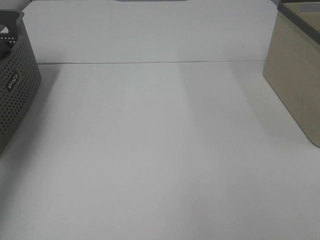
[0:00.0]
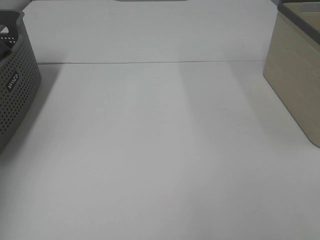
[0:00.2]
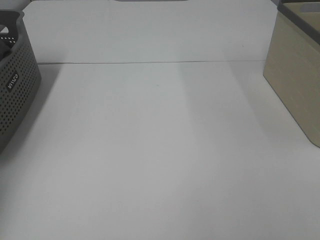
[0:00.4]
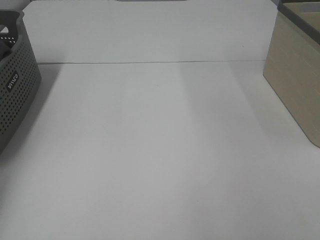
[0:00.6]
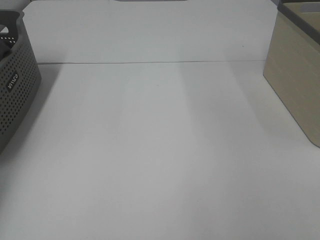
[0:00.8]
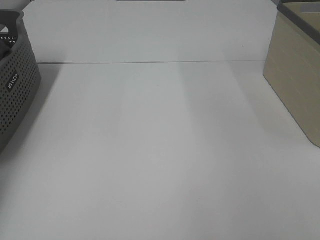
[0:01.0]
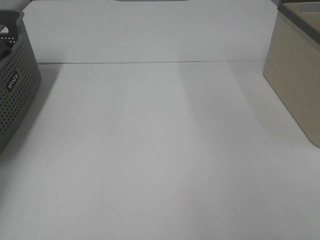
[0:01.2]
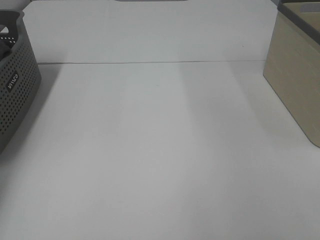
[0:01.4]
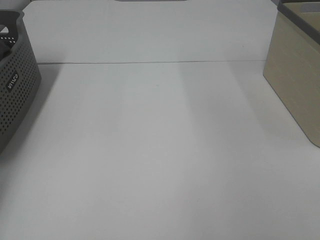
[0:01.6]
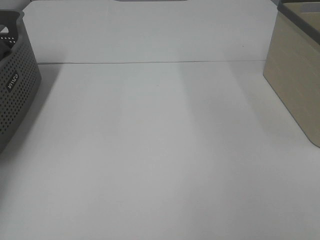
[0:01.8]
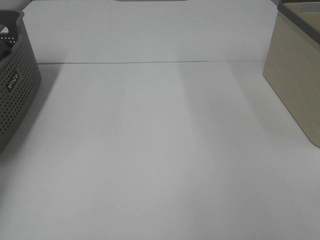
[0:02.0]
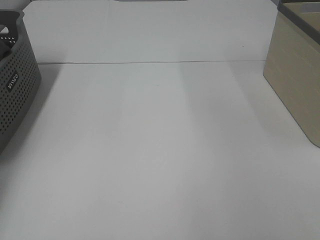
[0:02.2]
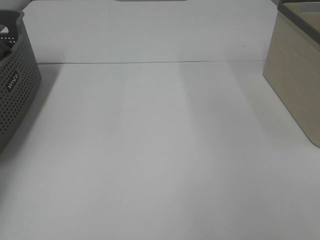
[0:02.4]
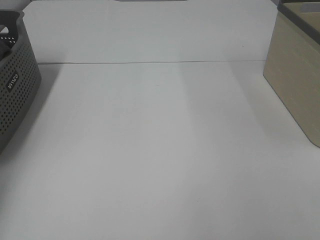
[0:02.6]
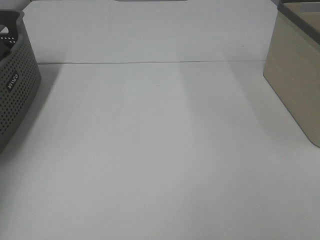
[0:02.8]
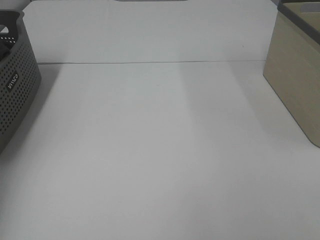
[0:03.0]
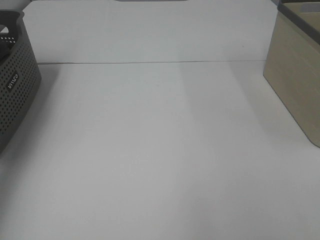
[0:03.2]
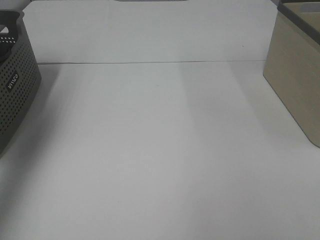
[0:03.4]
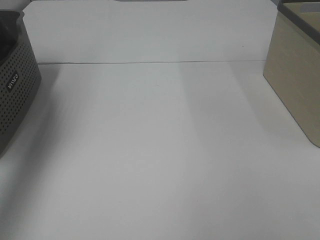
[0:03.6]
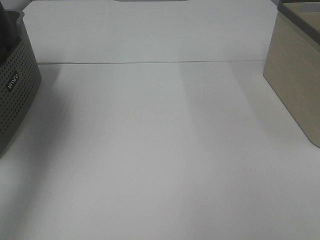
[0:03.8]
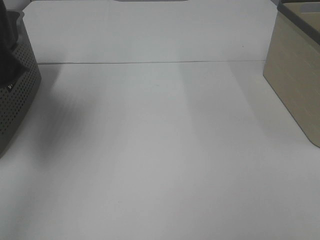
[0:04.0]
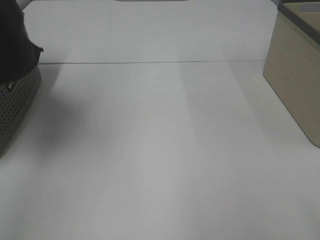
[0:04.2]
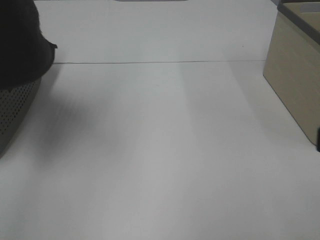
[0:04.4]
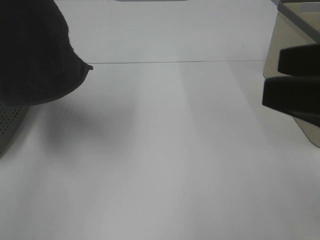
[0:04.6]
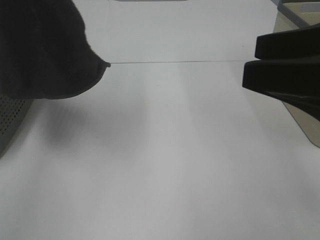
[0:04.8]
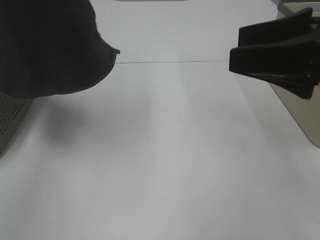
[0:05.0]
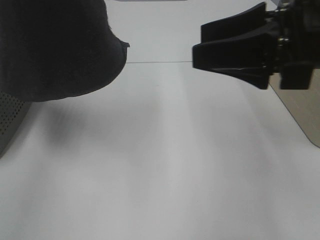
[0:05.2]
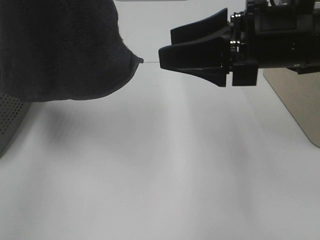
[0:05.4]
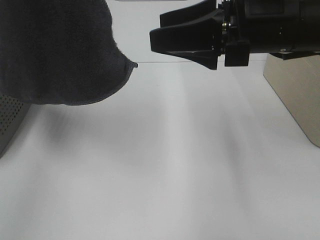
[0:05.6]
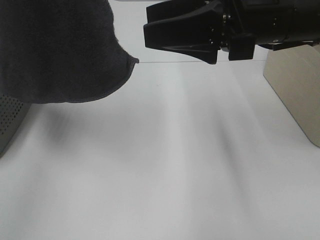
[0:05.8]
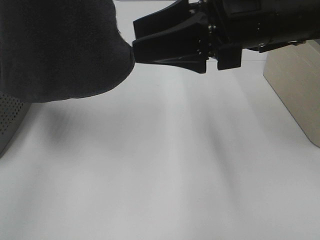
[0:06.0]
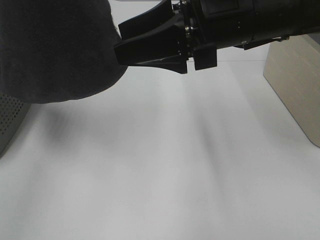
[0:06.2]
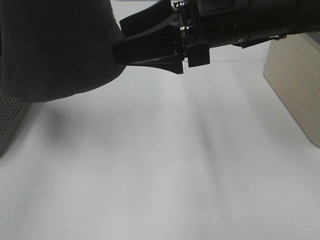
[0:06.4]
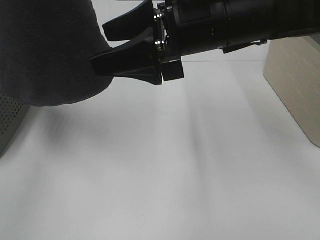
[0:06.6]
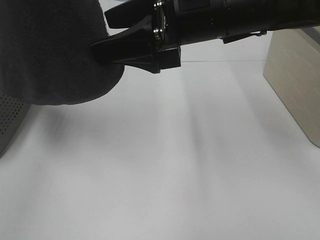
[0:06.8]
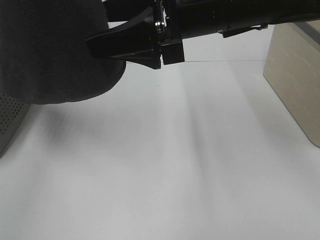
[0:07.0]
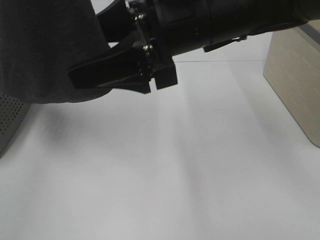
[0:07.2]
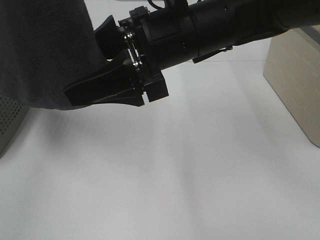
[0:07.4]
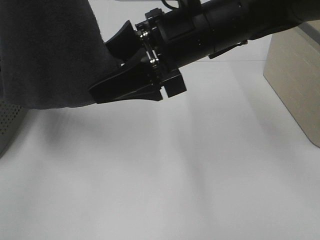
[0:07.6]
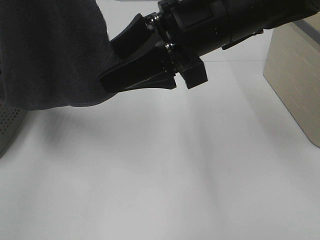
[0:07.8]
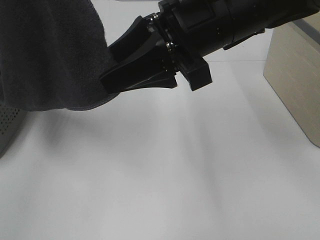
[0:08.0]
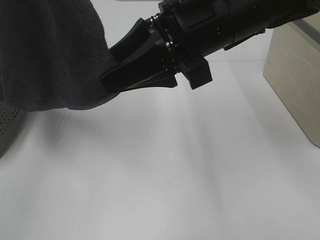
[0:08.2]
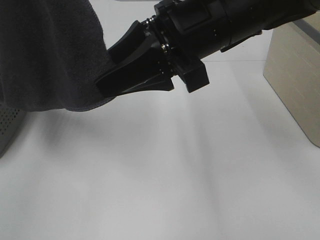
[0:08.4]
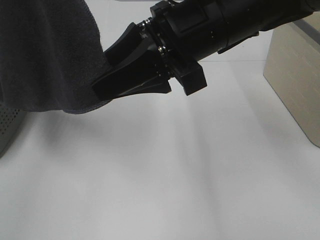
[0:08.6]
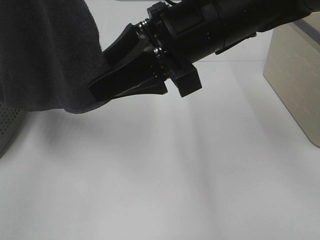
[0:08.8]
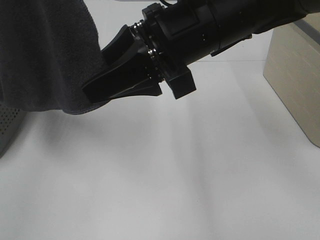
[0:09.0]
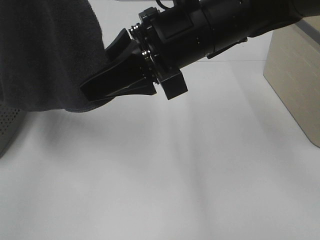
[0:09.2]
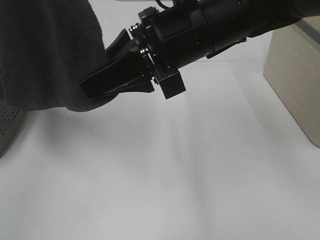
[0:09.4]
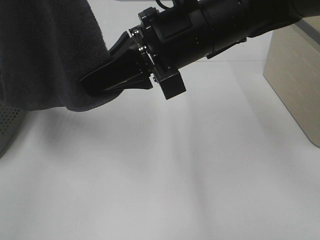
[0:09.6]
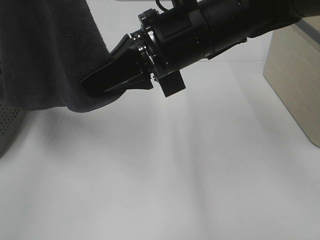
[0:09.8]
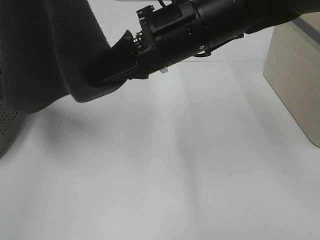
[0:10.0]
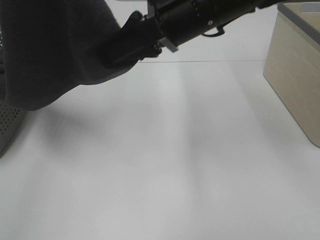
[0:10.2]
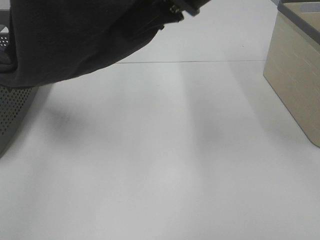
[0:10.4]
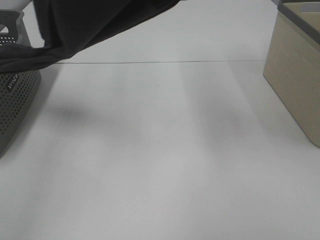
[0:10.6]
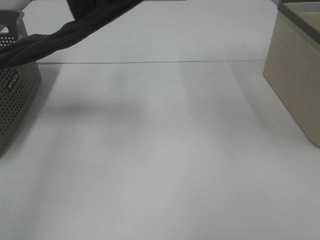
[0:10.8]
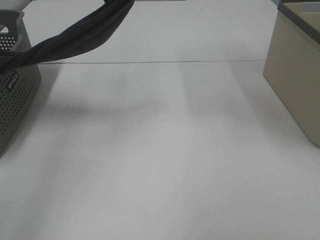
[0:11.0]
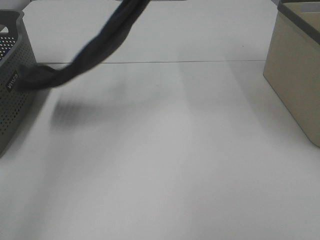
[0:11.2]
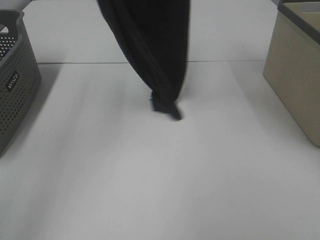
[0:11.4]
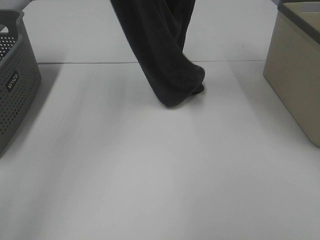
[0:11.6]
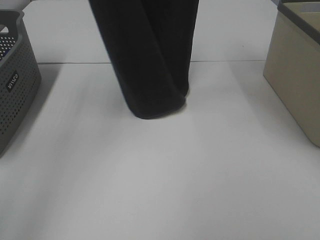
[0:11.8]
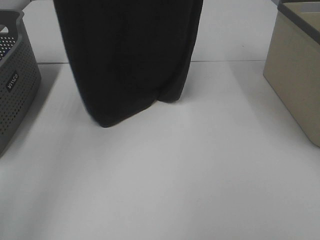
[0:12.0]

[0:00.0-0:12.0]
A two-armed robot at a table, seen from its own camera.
Task of the whole recording: Remove the towel and place it.
Step, 0:04.0 to 0:10.2: Right hand: grab a corner of the grey towel and straighten it.
0:00.0 to 0:01.6: The left gripper travels downward and forward by about 15 cm, and closes up.
0:03.0 to 0:04.4: The left gripper goes some 30 cm to the right, backward and upward. The right gripper moves forward, about 5 cm.
0:04.4 to 0:06.0: The right gripper goes roughly 25 cm forward and to the left.
0:06.0 to 0:07.6: The right gripper shifts about 5 cm to the left.
0:07.6 to 0:09.0: The grippers stay close to where they were, moving slightly.
0:09.0 to 0:10.4: The right gripper travels upward by some 5 cm, and closes up.
0:10.4 to 0:12.0: The right gripper travels upward by about 20 cm; the left gripper moves forward, some 15 cm.

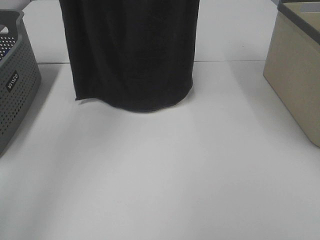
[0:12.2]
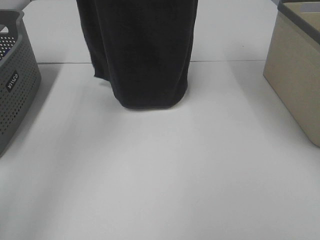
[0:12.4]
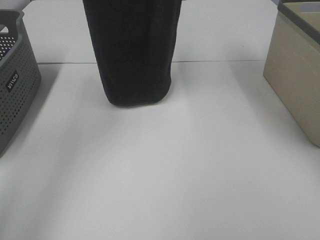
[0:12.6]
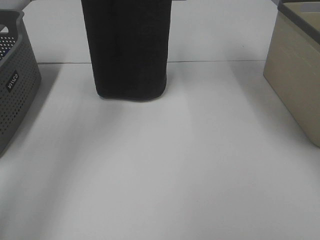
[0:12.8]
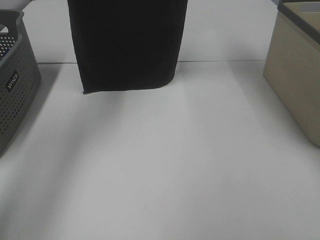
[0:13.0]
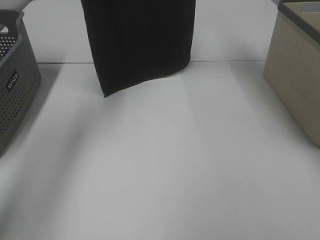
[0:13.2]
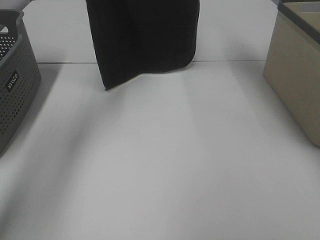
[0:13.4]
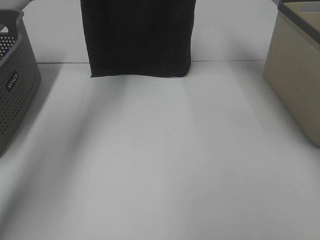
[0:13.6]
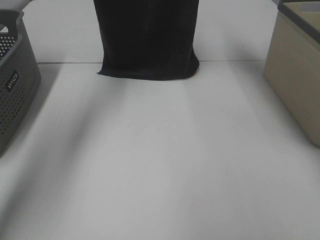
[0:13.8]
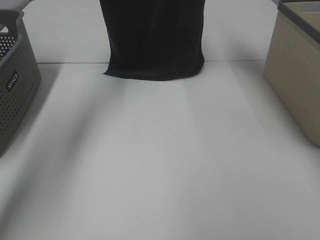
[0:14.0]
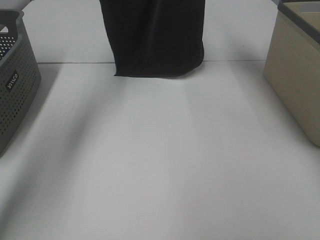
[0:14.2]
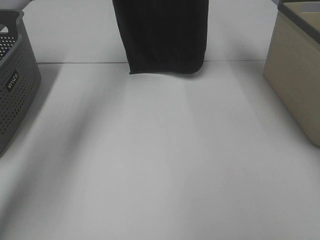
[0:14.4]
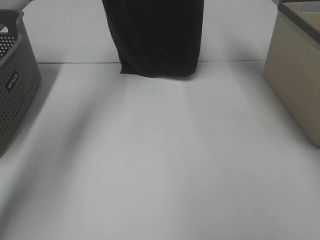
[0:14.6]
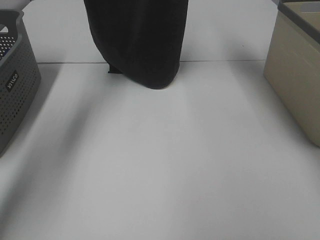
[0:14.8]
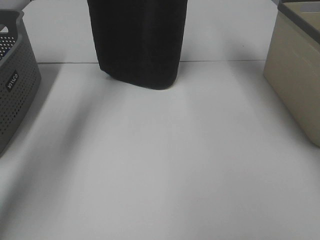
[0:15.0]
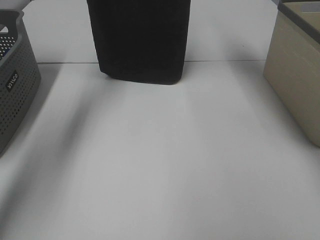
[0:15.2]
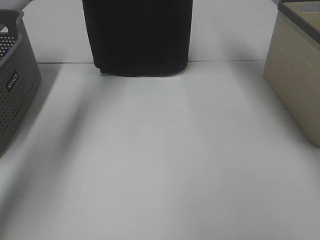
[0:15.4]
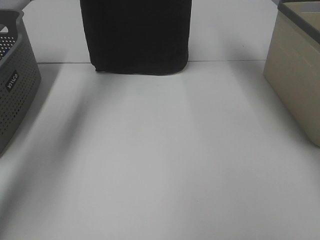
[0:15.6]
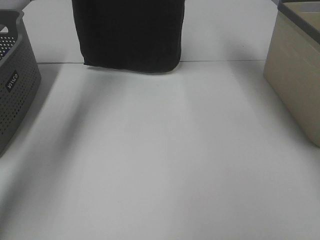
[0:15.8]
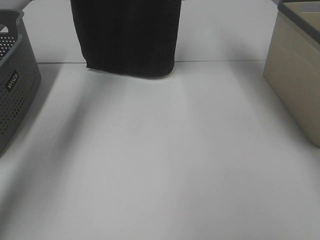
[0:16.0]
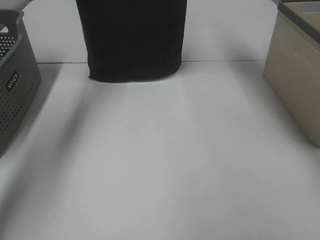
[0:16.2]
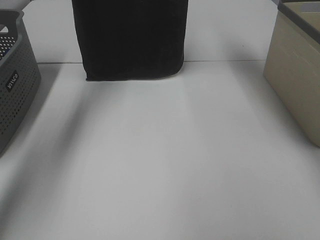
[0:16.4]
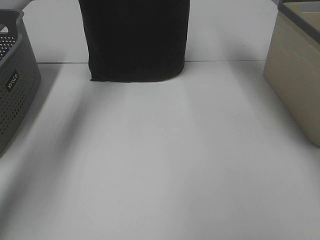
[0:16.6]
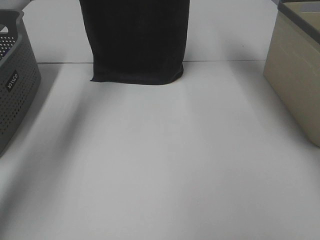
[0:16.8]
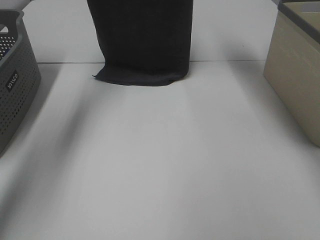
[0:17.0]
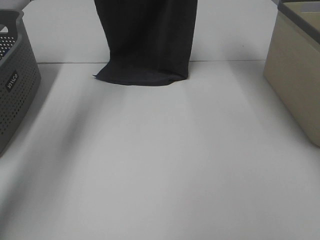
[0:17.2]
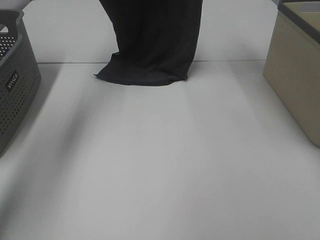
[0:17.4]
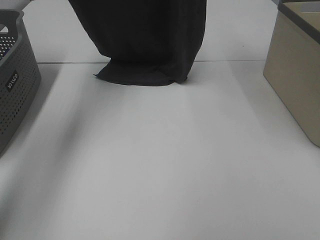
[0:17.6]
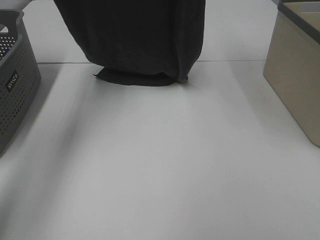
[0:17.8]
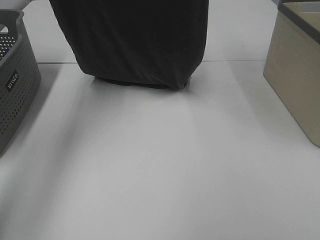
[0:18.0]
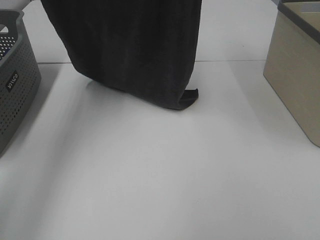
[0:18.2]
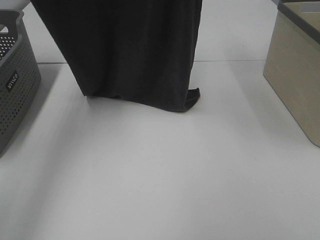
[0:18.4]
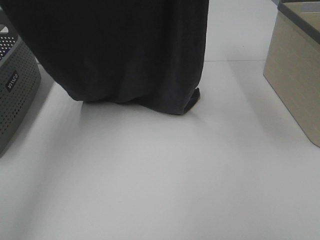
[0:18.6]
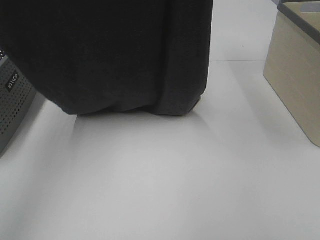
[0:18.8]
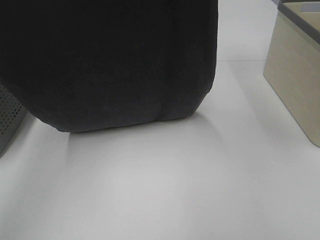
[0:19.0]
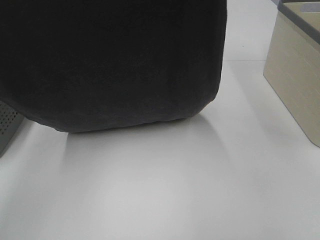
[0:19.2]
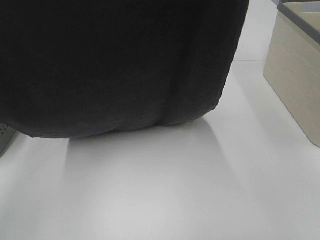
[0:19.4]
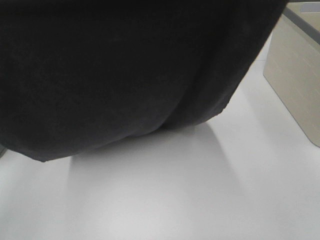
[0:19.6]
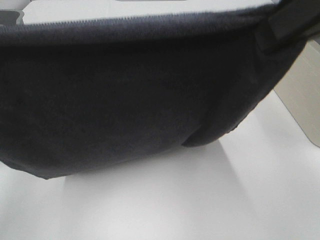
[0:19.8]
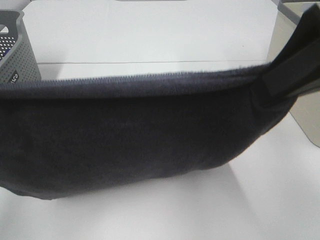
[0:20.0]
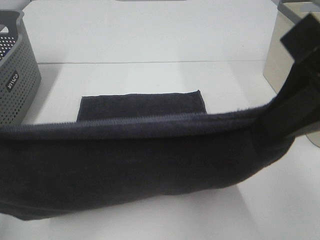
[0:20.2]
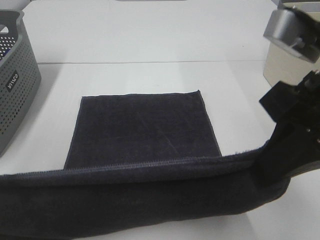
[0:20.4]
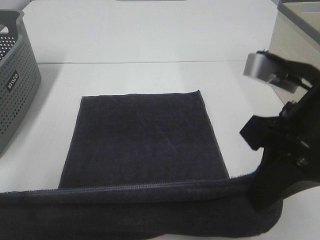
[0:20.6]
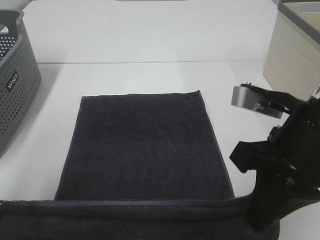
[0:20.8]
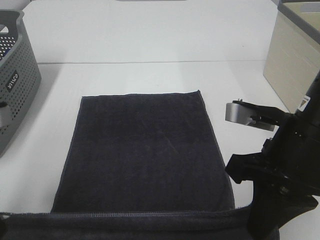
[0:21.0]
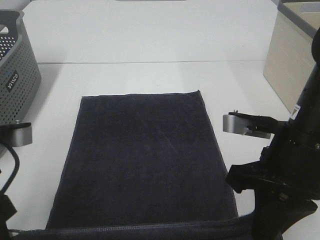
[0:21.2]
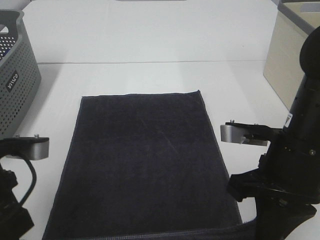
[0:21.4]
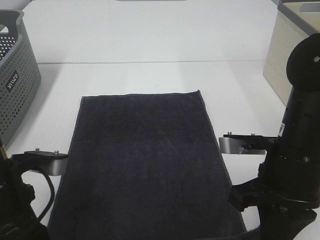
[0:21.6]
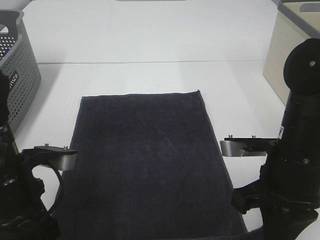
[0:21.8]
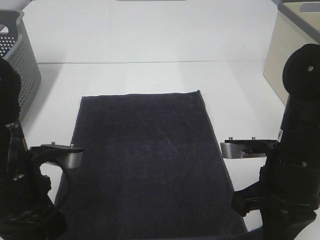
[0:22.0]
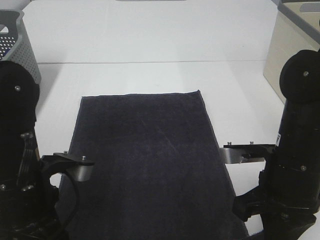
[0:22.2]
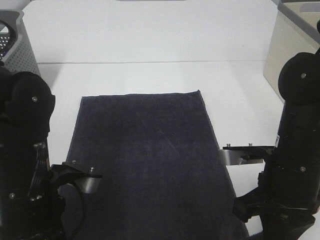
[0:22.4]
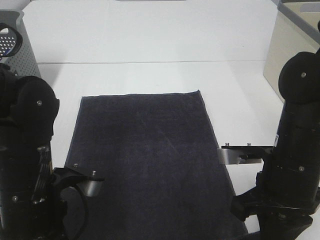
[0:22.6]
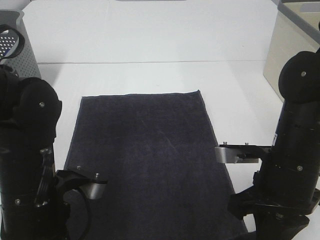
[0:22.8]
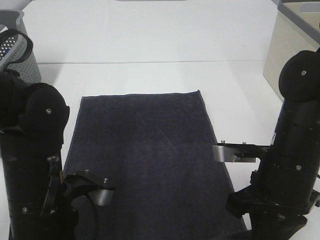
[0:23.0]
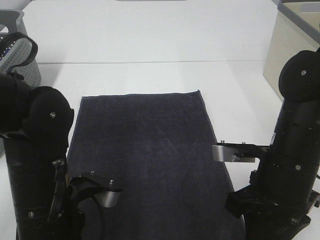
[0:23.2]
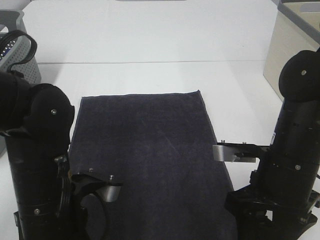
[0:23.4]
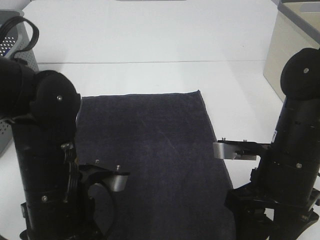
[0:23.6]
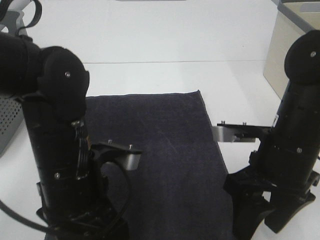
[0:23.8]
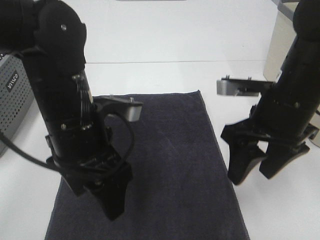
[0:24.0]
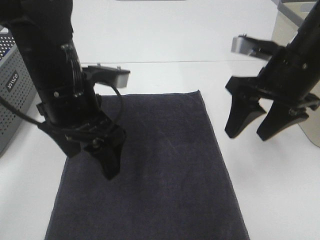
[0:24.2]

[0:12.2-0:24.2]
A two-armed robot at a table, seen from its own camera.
Task of the whole recording: Remove the towel and place it.
Step, 0:12.2 to 0:17.8: Left hand: spread the grey towel flat on the table.
Step, 0:12.2 to 0:17.8: Right hand: spread the grey towel flat on the table.
0:12.2 to 0:13.8: The two grippers go roughly 15 cm forward and downward.
0:13.8 to 0:16.6: There are only small adjustments of the grippers.
0:16.6 to 0:18.2: Both grippers move backward, some 15 cm.
0:18.2 to 0:19.8: The grippers both shift backward and downward by some 25 cm.
0:19.8 to 0:21.2: Both grippers travel together downward, approximately 20 cm.
0:21.2 to 0:22.6: The left gripper heads to the right and downward, covering about 10 cm. The right gripper goes some 5 cm downward.
0:22.6 to 0:24.2: The left gripper travels forward and upward by some 15 cm, and opens up. Meanwhile the right gripper goes some 15 cm upward and forward, and opens.
